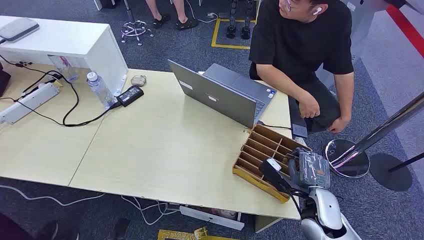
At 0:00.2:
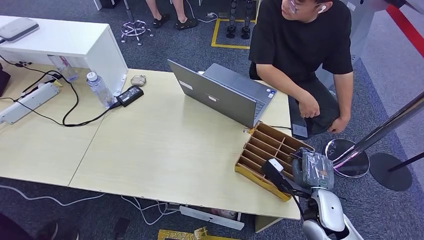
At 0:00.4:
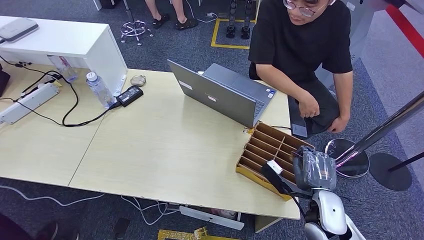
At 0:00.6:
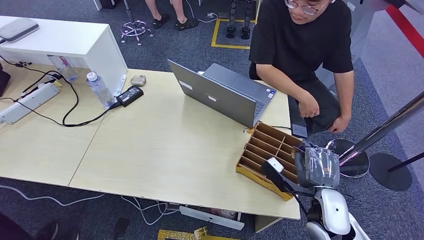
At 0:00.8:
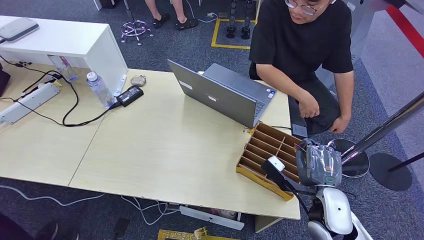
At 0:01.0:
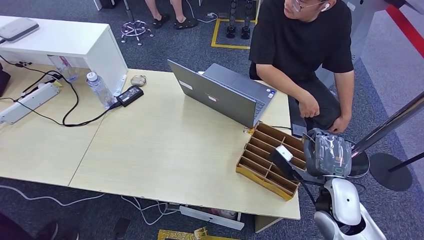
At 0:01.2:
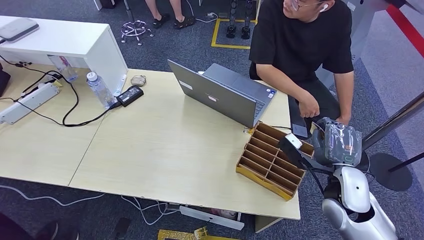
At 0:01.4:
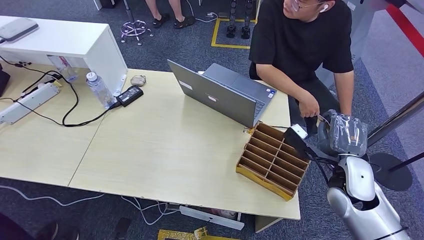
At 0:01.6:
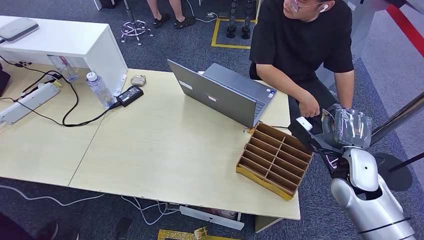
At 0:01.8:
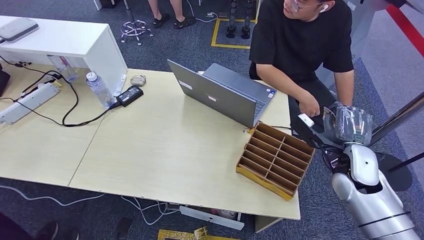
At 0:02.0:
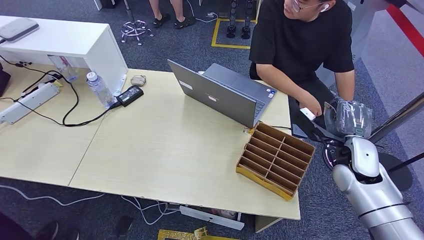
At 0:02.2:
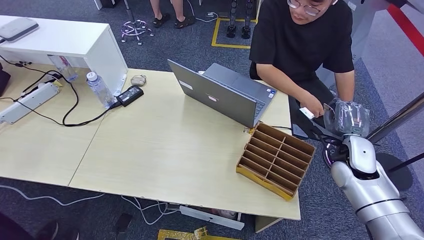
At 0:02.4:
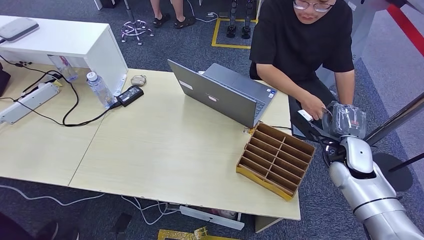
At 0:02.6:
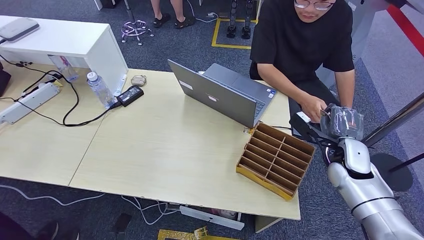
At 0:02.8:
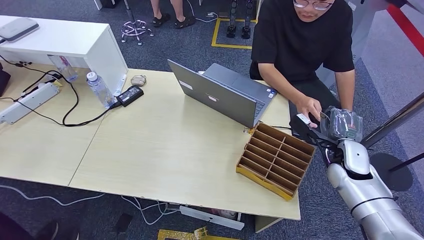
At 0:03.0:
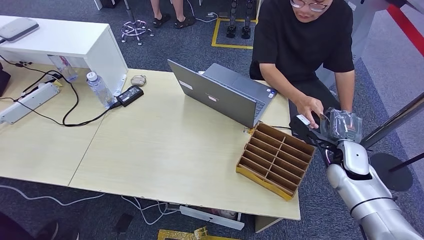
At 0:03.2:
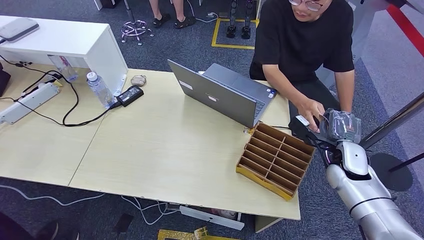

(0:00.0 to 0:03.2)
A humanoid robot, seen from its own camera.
Step, 0:00.0 - 0:01.6: Pick up the room card from the card holder.
Step, 0:01.8 - 0:03.2: Hand the room card to the target.
0:01.6 - 0:03.2: The right hand heads forward, covering approximately 5 cm.
